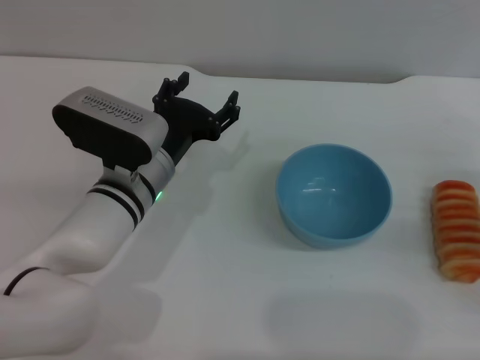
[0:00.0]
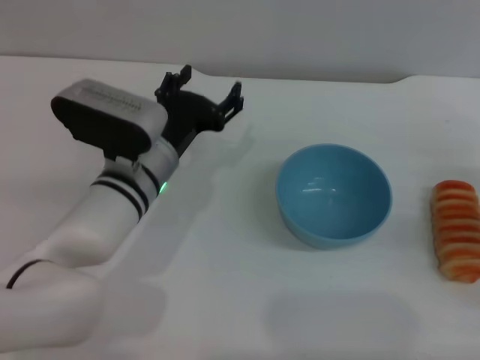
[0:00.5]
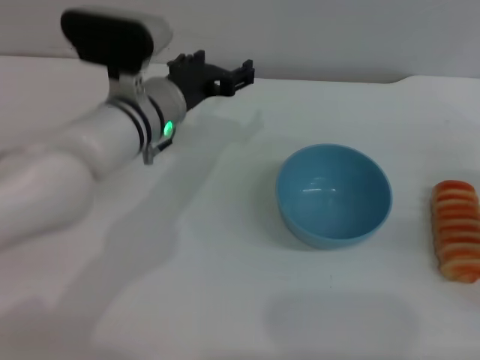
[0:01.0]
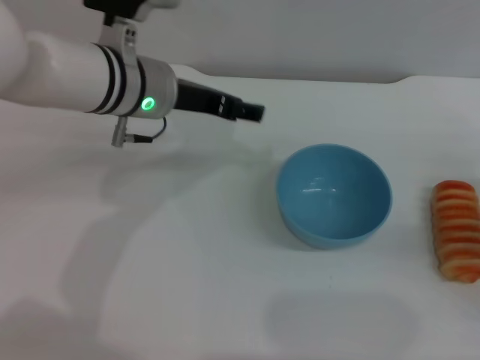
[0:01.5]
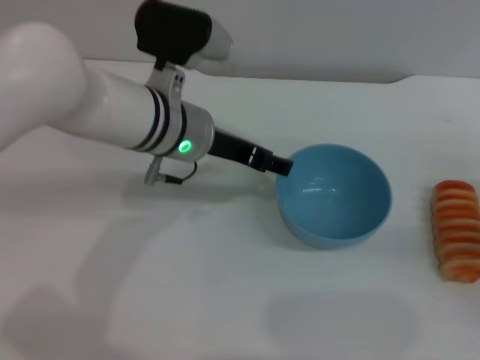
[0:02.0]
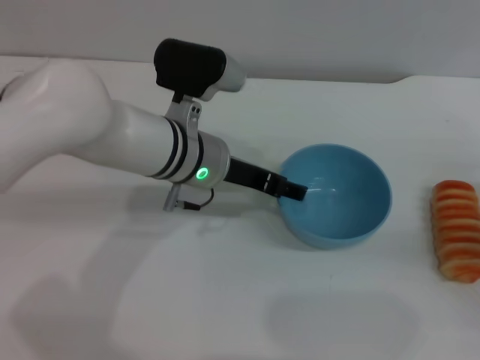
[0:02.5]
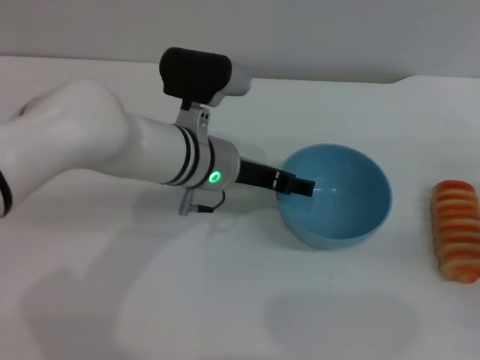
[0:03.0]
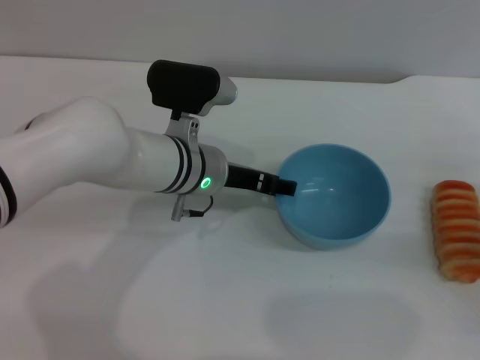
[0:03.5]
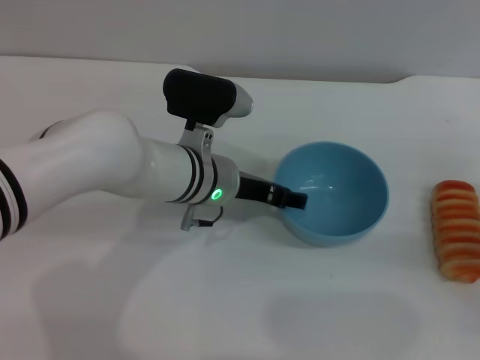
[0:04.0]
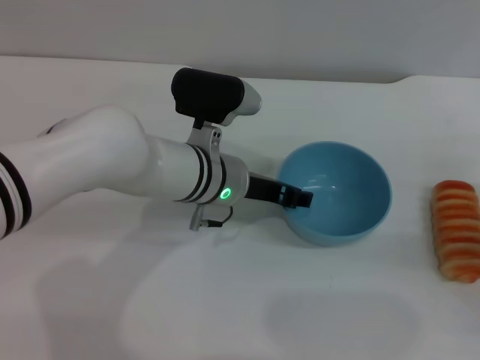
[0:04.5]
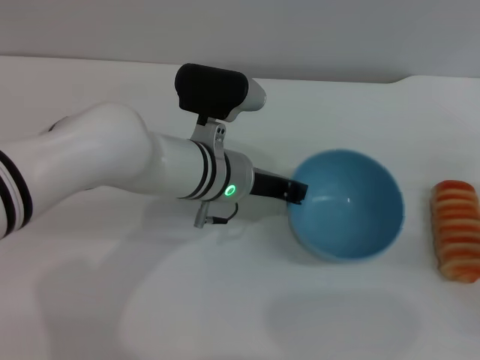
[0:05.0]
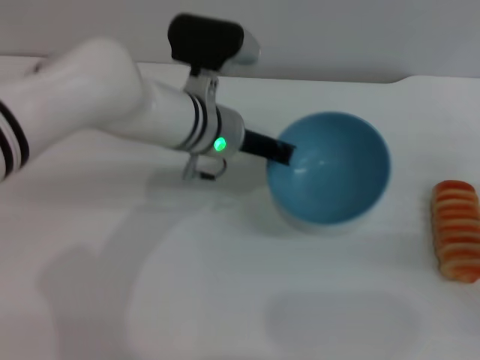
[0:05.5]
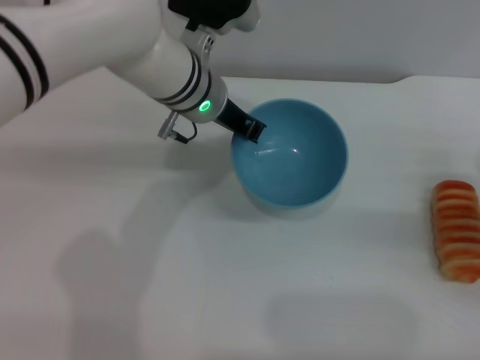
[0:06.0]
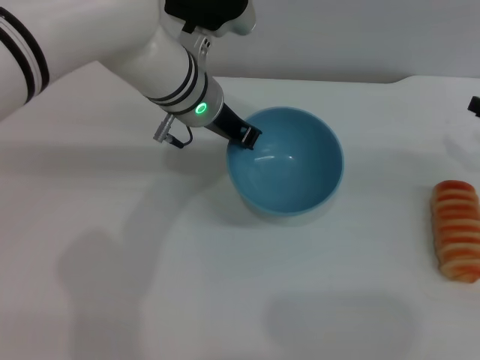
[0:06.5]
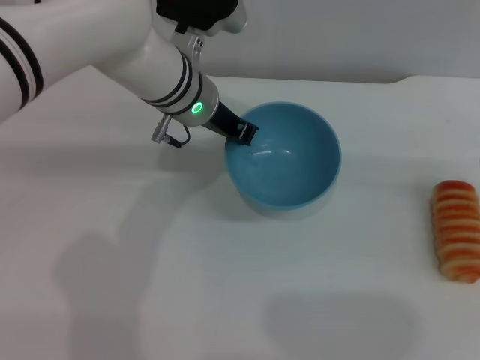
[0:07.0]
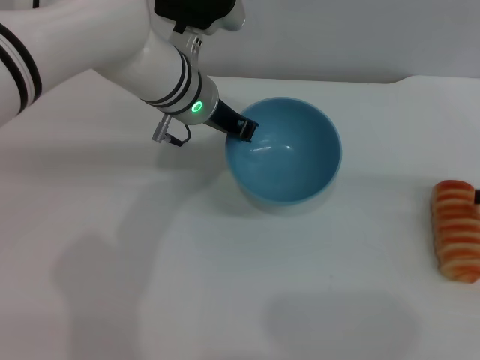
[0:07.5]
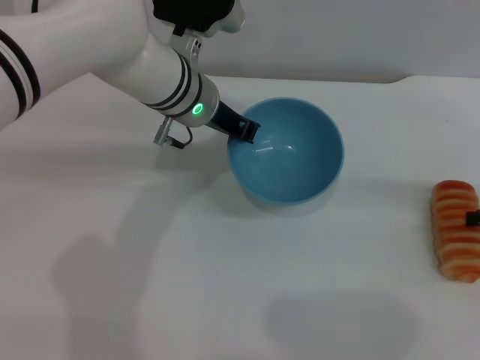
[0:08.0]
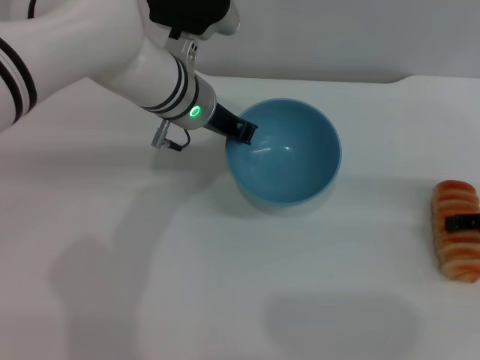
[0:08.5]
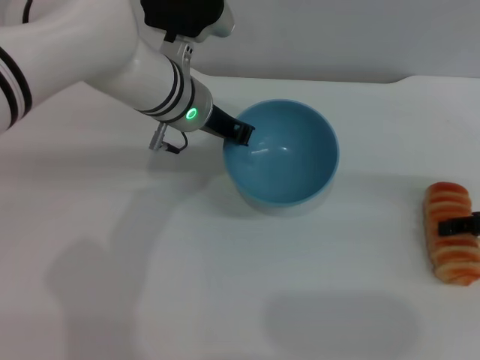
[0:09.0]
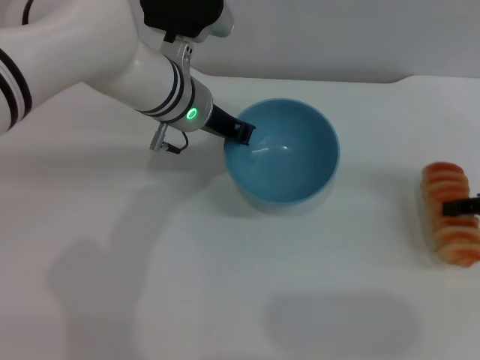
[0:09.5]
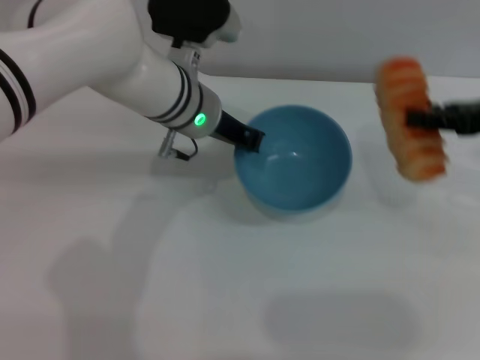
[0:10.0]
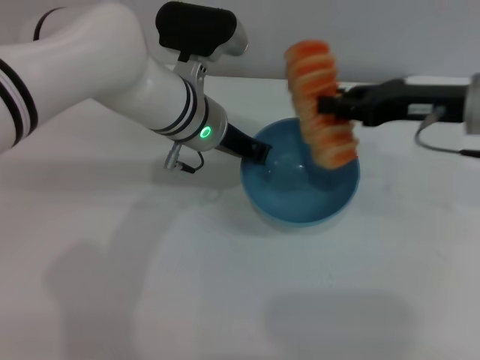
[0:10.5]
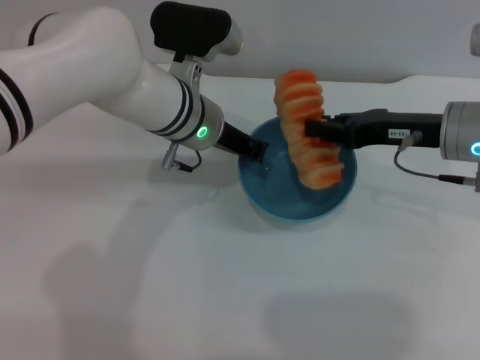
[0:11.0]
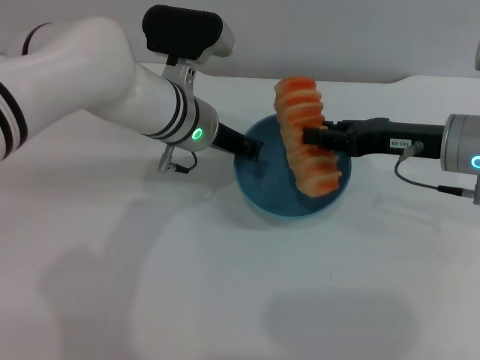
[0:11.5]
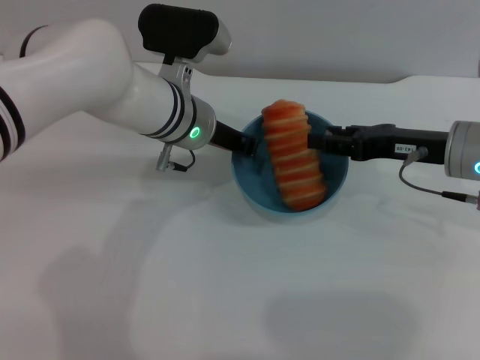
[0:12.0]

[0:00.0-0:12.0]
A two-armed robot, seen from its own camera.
Task of the whole recording: put the bread into the blue bowl and pour it out repeatedly.
Step, 0:00.0 to 0:05.5: Pick up the bowl with the left gripper.
Step, 0:06.0 to 0:10.0: Pick up the bread with the right gripper.
0:00.0 to 0:02.0: The left gripper goes roughly 10 cm upward.
0:02.0 to 0:04.0: The left gripper is displaced downward by approximately 5 cm.
0:04.0 to 0:06.0: The left gripper travels upward and forward by about 10 cm, and closes its fingers.
0:06.0 to 0:08.0: The right gripper goes approximately 5 cm upward.
0:08.0 to 0:10.0: The right gripper moves upward and to the left, approximately 10 cm.
0:10.0 to 0:12.0: The right gripper shifts approximately 10 cm downward and to the left.

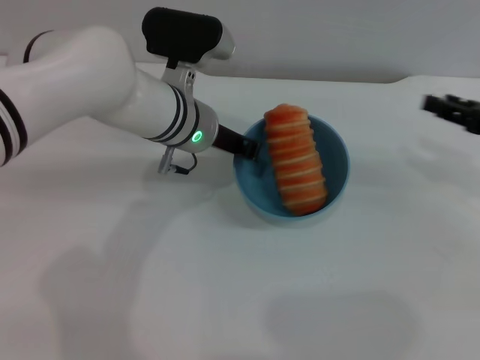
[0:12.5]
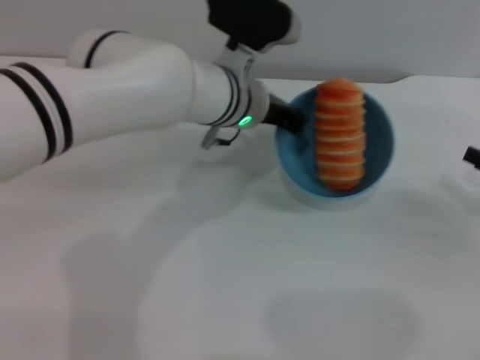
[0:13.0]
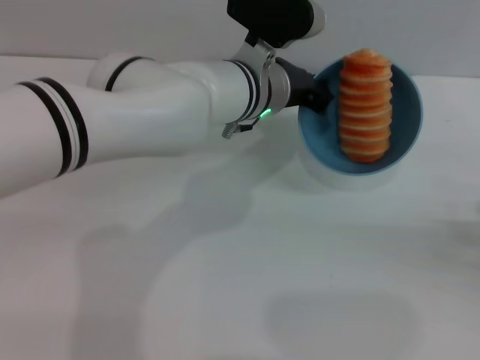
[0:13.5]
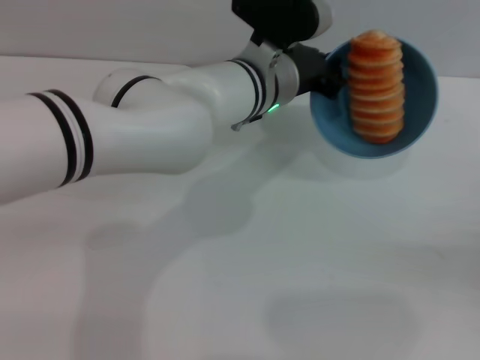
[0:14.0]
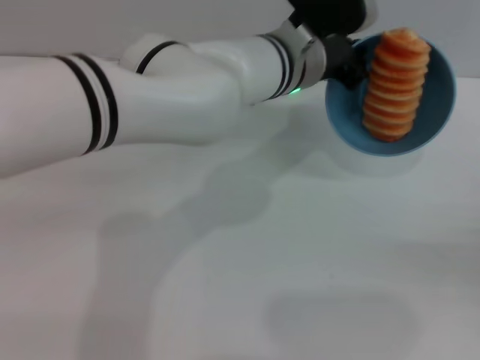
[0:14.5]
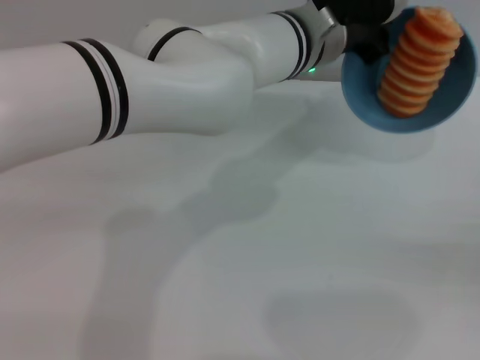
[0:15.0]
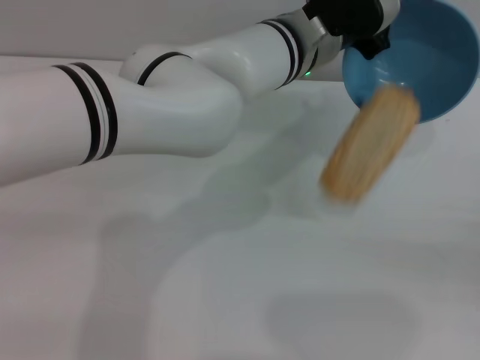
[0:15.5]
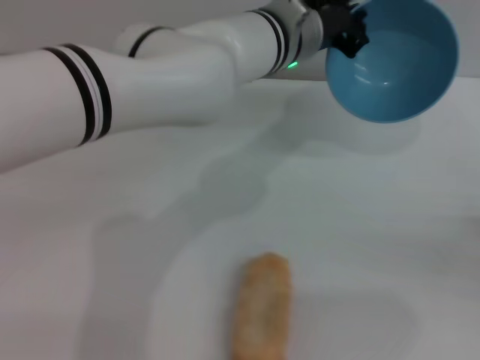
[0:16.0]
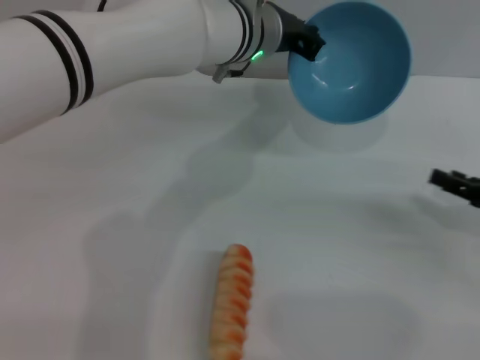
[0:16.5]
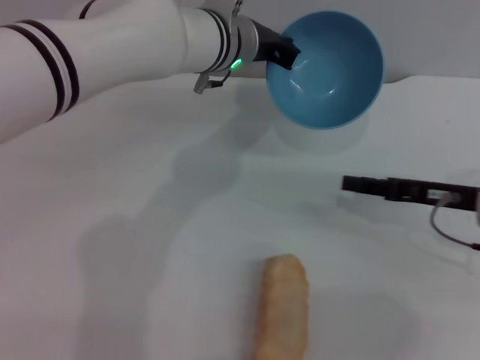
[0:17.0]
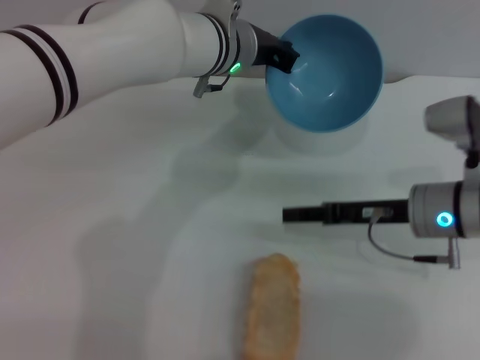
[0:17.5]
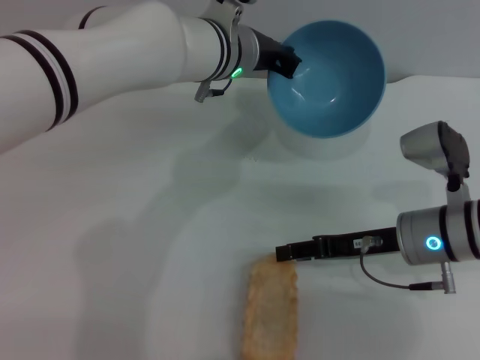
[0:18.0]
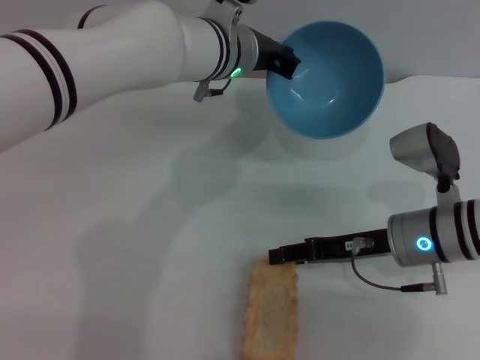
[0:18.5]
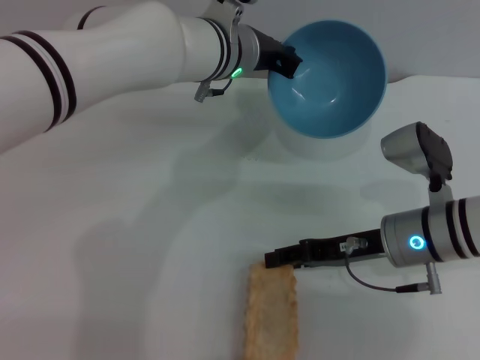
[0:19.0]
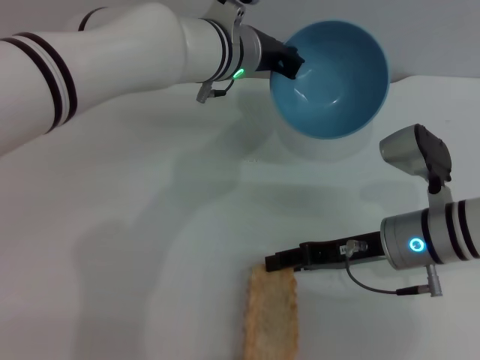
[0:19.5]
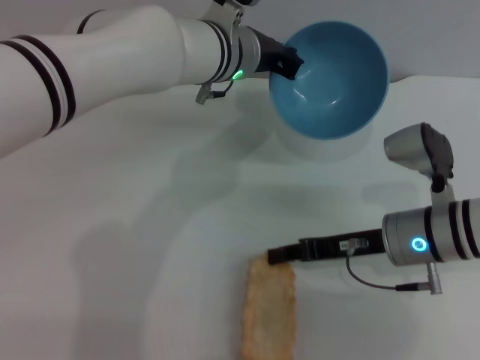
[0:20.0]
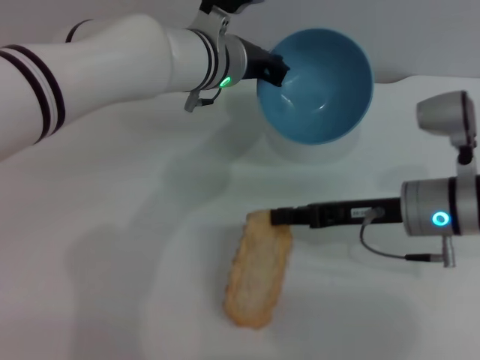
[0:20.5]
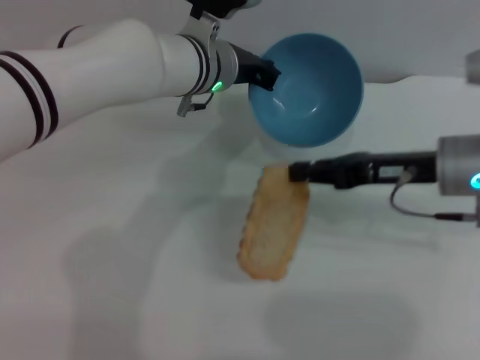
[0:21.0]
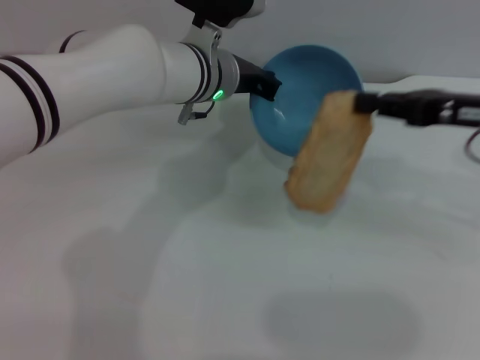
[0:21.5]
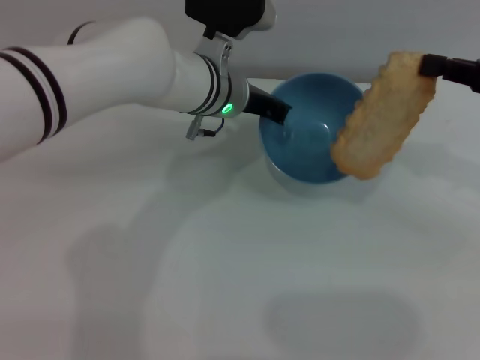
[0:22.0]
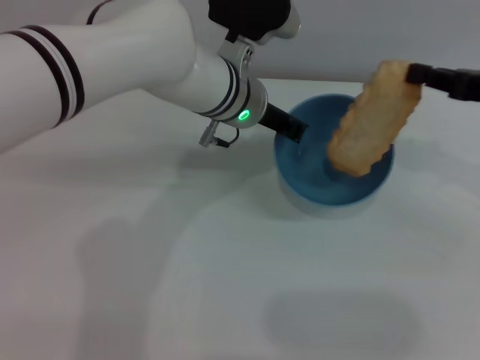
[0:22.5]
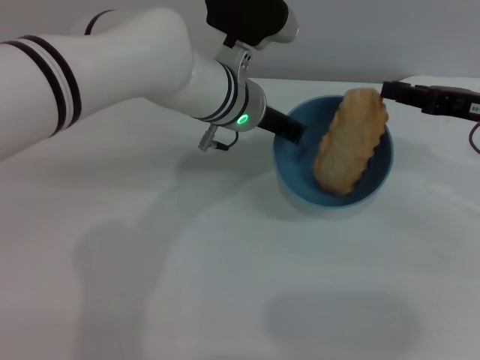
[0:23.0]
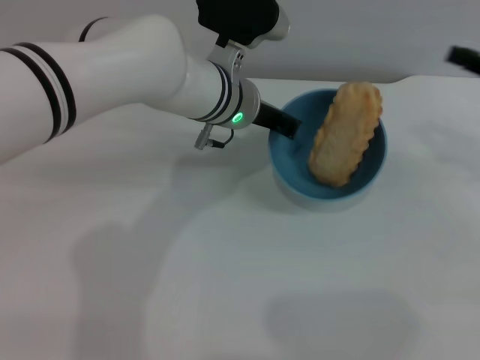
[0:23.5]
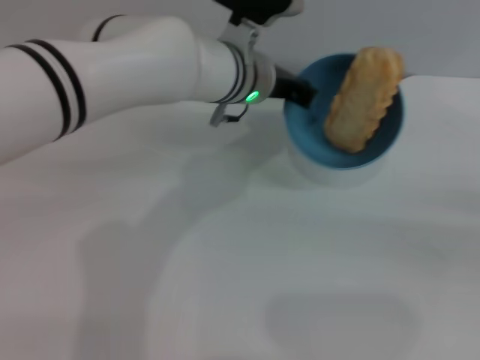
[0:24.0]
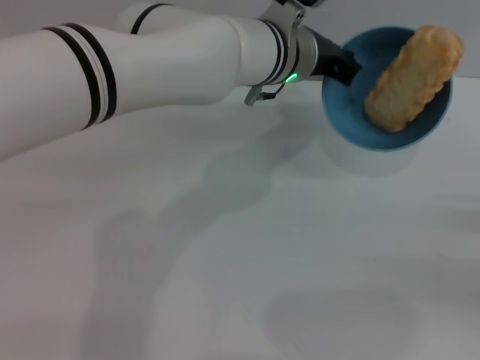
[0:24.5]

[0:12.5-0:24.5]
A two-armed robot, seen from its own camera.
Task of the whole recording: put the bread into the blue bowl and pour it out repeatedly.
Step, 0:13.0 to 0:15.5: Pour the bread out of the bowl.
Step, 0:16.0 to 0:21.0: Pick up the bread with the right gripper.
Step, 0:21.5 to 0:23.0: Place the bread into the bowl.
0:12.5 to 0:14.5: The left gripper travels to the right by roughly 10 cm. The right gripper travels backward, to the right and downward by roughly 15 cm.
0:14.5 to 0:16.5: The left gripper changes place by roughly 5 cm; the right gripper shifts approximately 10 cm to the left and forward.
0:16.5 to 0:18.5: The right gripper moves to the left, roughly 15 cm.
0:18.5 to 0:20.5: The right gripper closes its fingers.
0:20.5 to 0:22.5: The right gripper shifts about 15 cm to the right and upward.
0:22.5 to 0:24.5: The left gripper moves approximately 5 cm, while the right gripper heads backward, to the right and downward, covering some 20 cm, and opens its fingers.

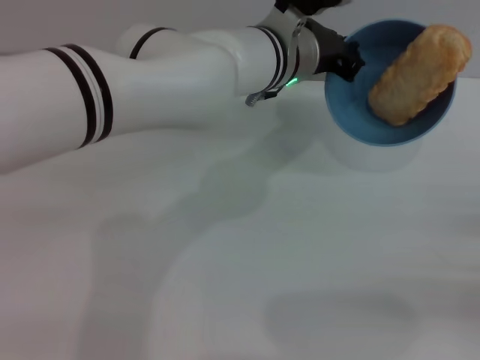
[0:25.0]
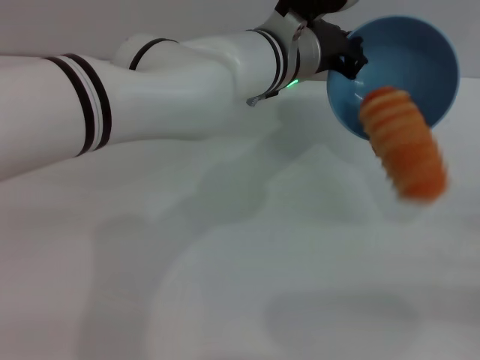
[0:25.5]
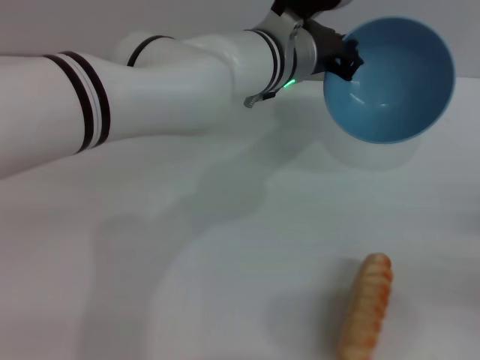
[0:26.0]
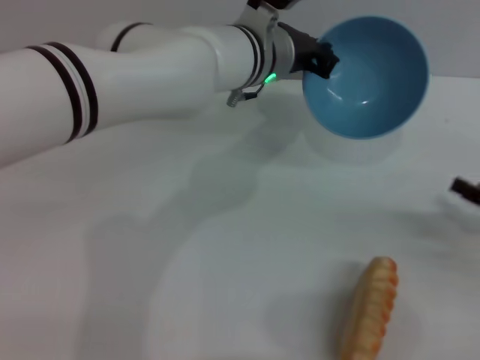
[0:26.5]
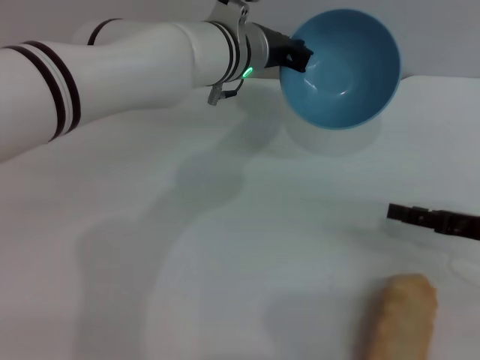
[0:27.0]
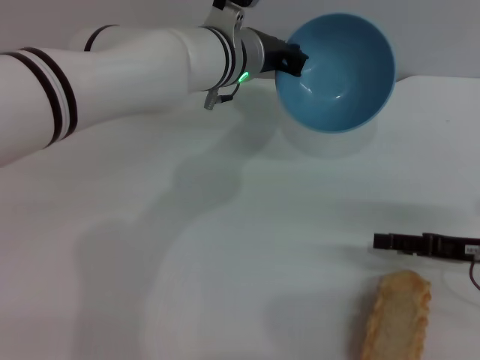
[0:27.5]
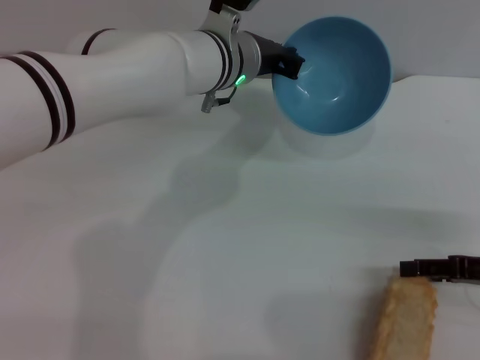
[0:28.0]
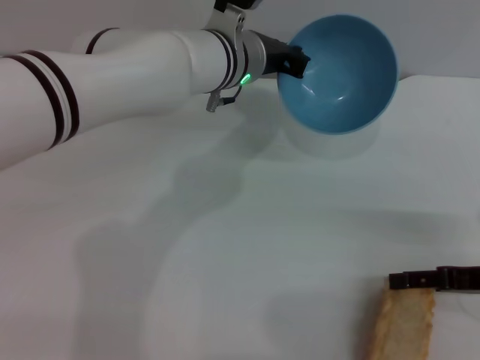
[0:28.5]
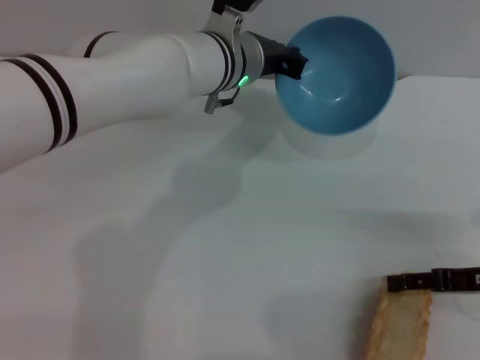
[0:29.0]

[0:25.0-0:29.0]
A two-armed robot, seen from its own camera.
Task of the whole recording: put the bread into the blue bowl and pour it out repeatedly.
0:25.0 to 0:27.0: The right gripper moves to the left and forward, about 10 cm, and opens up.
